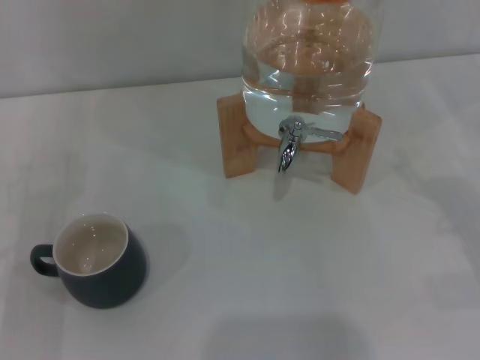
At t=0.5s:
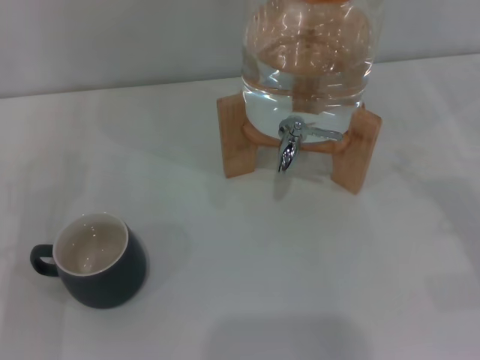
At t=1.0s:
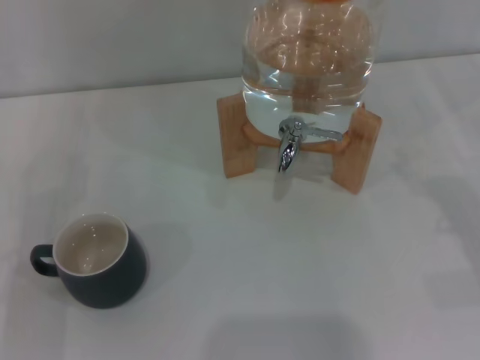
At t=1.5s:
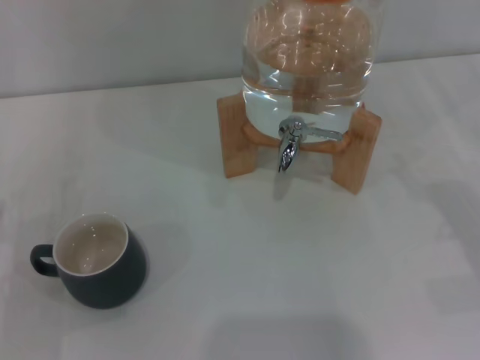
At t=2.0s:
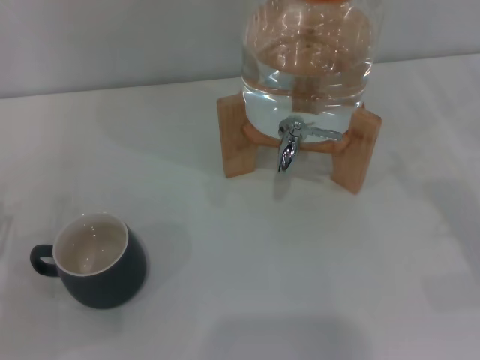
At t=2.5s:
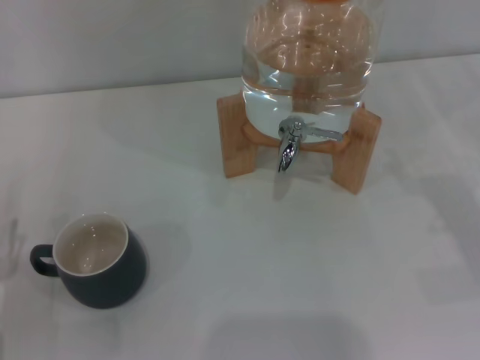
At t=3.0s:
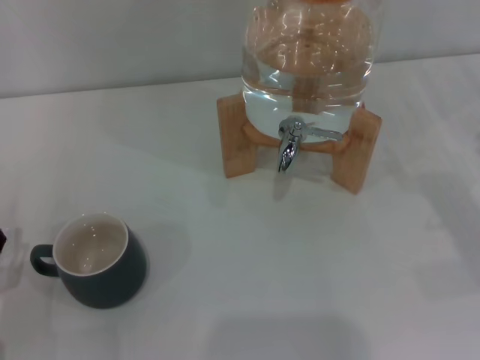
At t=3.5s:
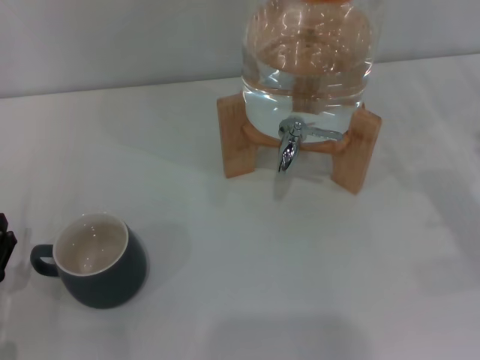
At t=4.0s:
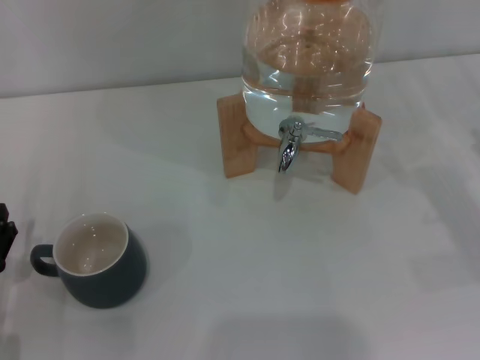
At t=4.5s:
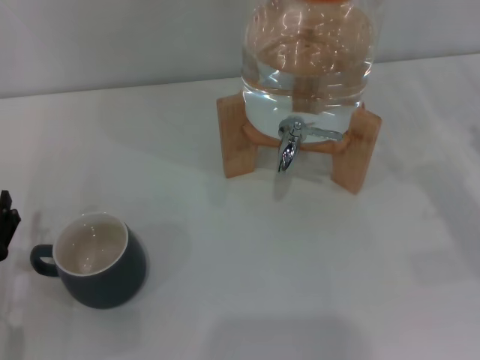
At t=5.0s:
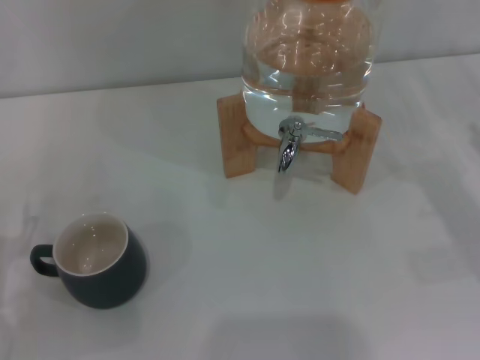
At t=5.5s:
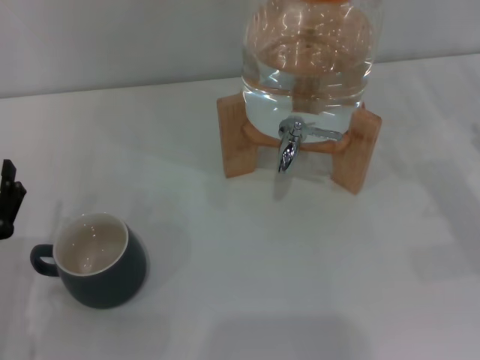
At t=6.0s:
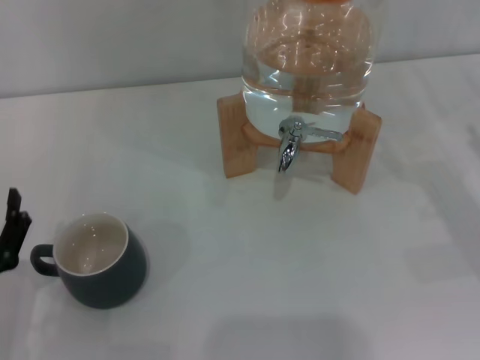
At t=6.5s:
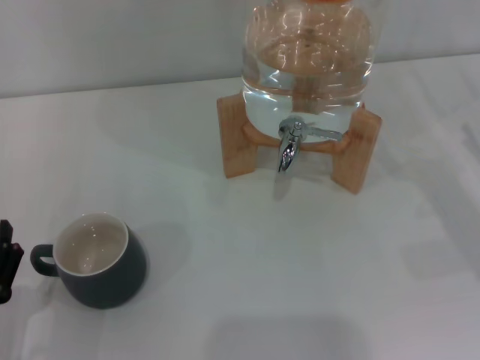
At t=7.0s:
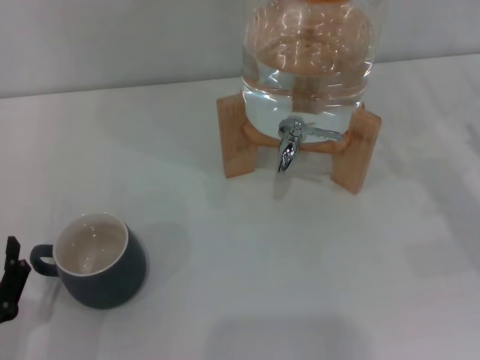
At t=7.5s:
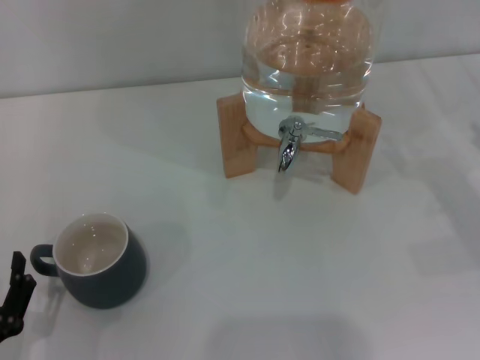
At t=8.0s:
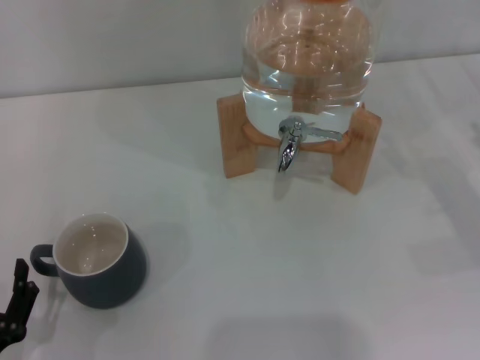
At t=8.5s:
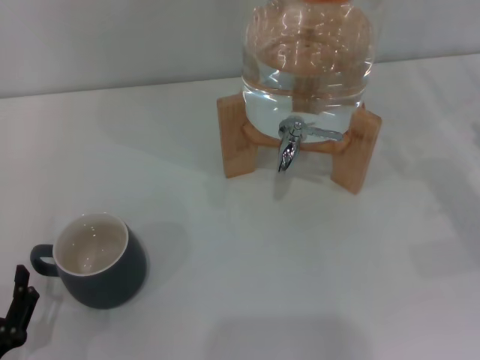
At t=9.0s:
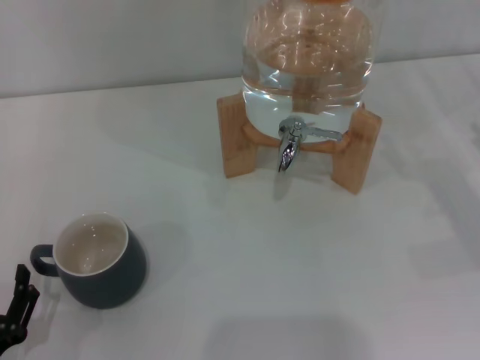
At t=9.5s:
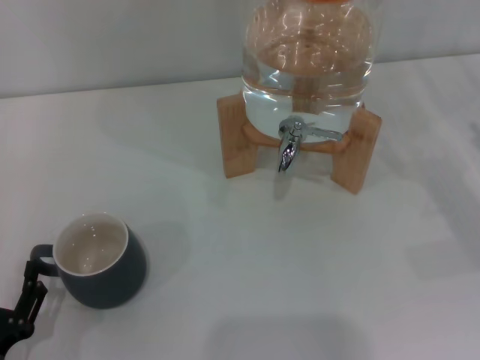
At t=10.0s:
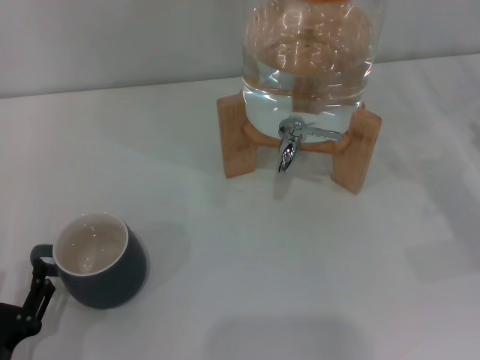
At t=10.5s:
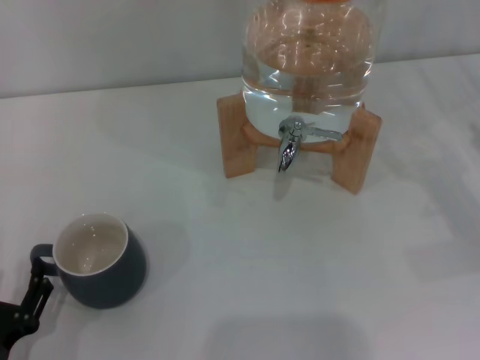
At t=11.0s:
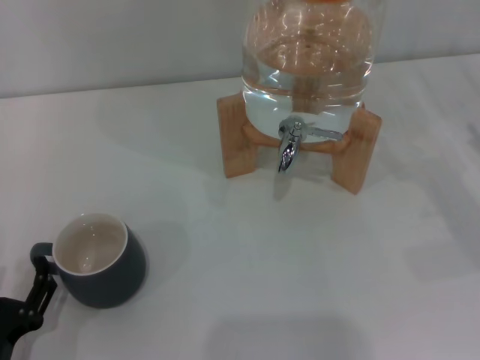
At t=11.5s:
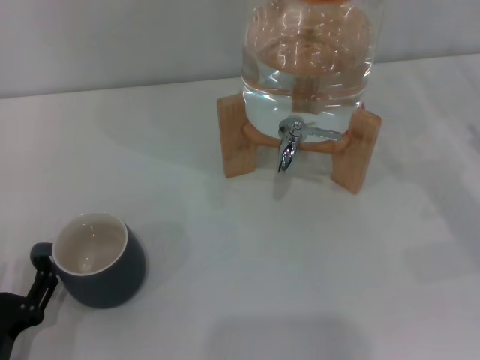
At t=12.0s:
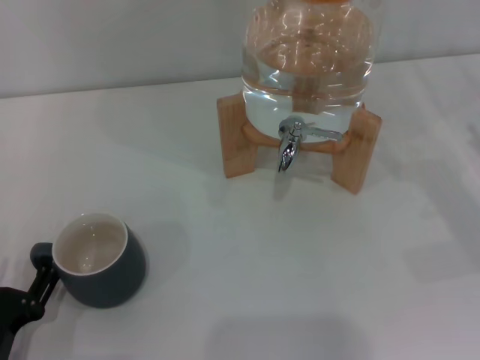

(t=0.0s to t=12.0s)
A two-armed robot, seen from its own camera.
Task of the whole recording: the left gripper pick up the black cup and place it horizontally under the faucet, the right gripper turn on the faucet to fill the cup, and then turn off the faucet.
t=4.0s - t=6.0s: The grippers make only small movements.
t=6.0s - t=8.0s: The left gripper is displaced backward by about 5 cm.
t=8.0s - t=12.0s: The grippers make only small movements.

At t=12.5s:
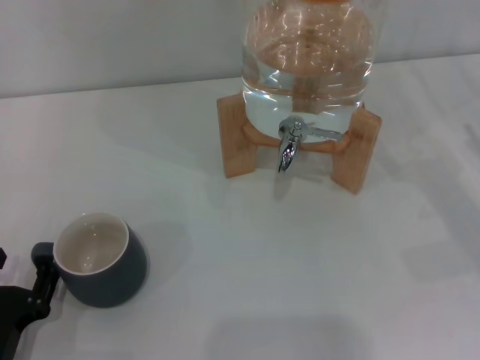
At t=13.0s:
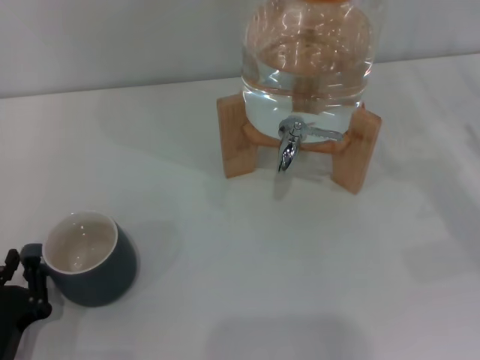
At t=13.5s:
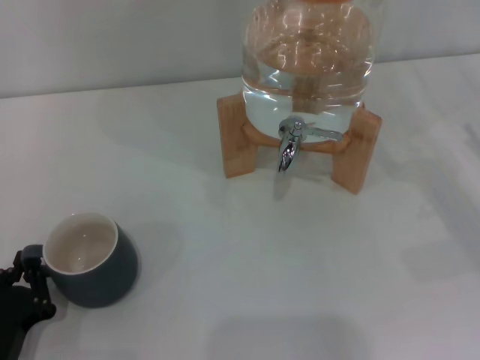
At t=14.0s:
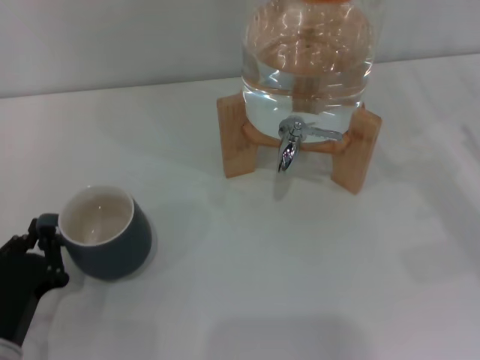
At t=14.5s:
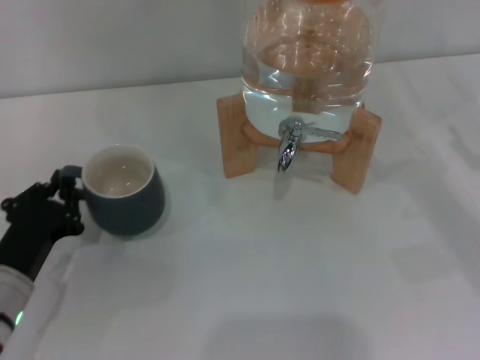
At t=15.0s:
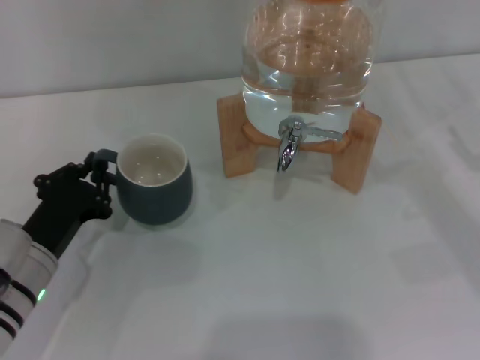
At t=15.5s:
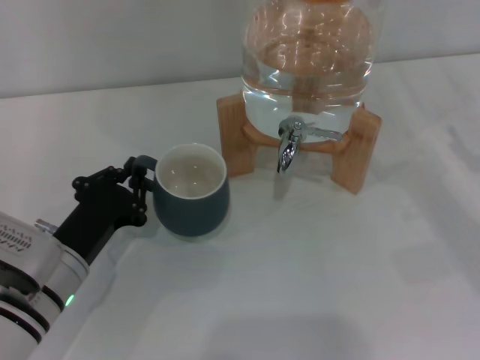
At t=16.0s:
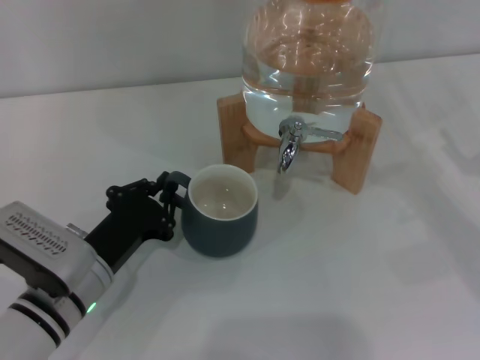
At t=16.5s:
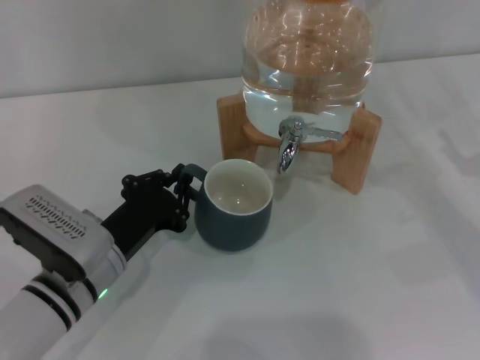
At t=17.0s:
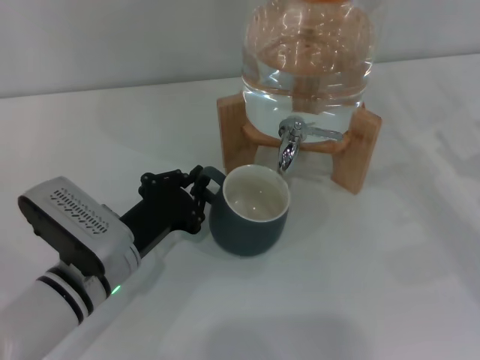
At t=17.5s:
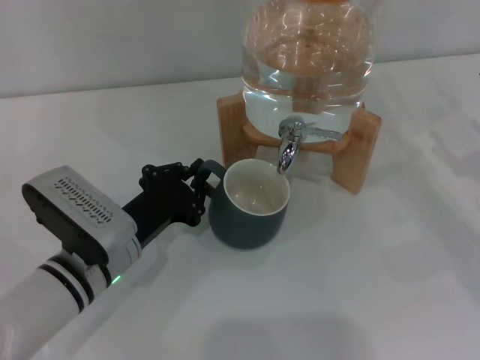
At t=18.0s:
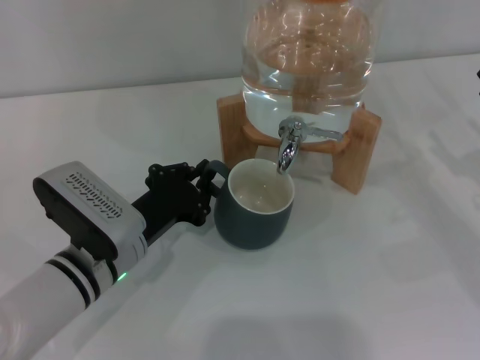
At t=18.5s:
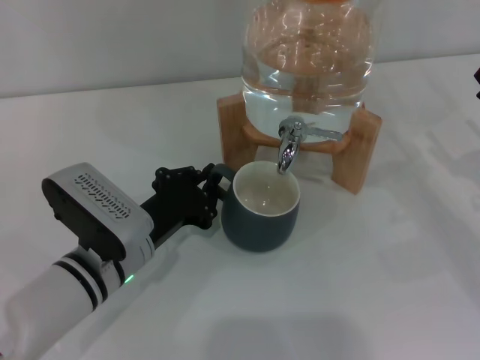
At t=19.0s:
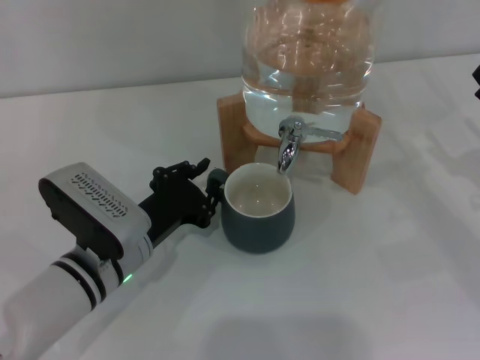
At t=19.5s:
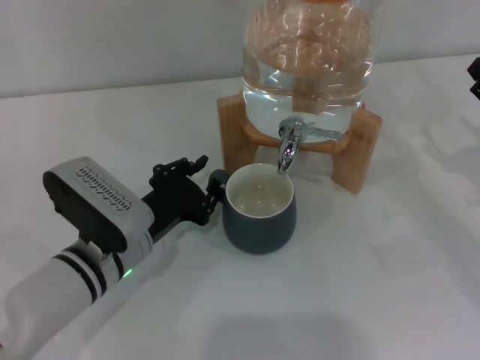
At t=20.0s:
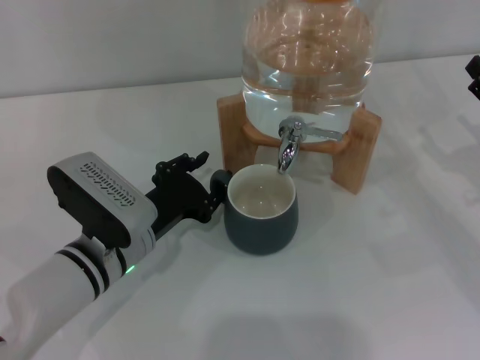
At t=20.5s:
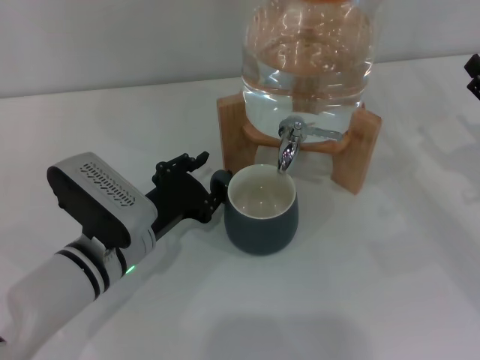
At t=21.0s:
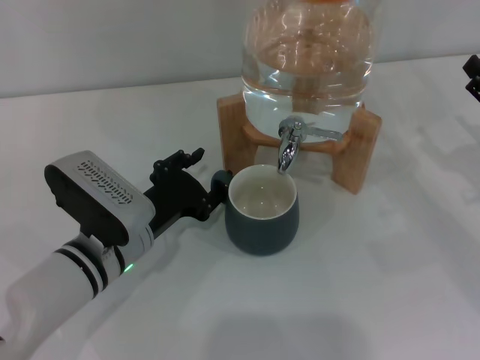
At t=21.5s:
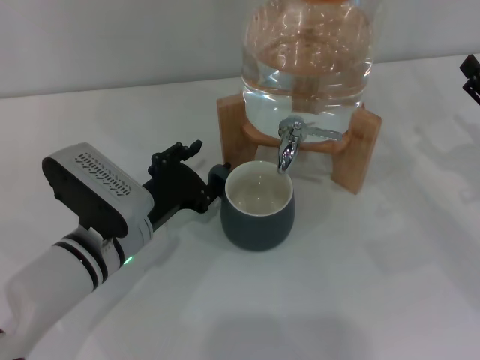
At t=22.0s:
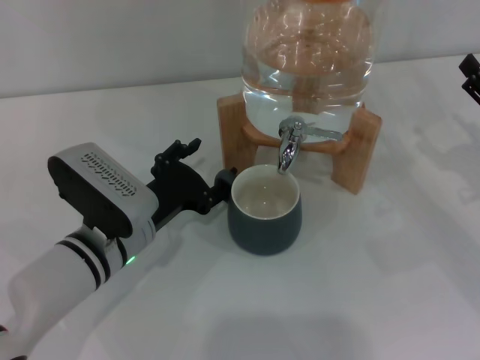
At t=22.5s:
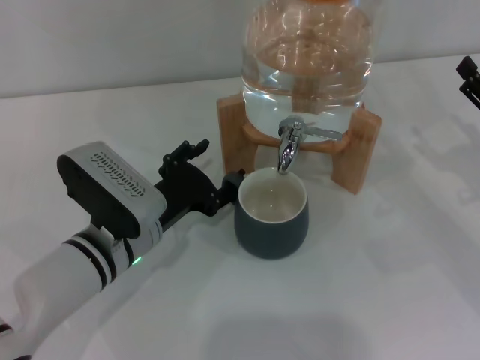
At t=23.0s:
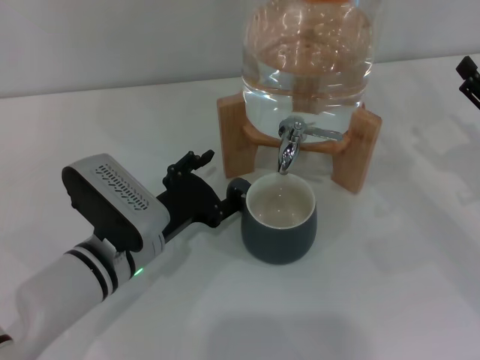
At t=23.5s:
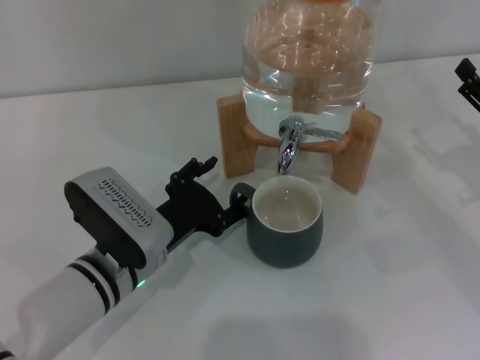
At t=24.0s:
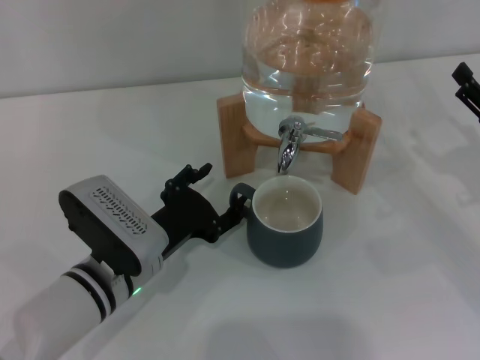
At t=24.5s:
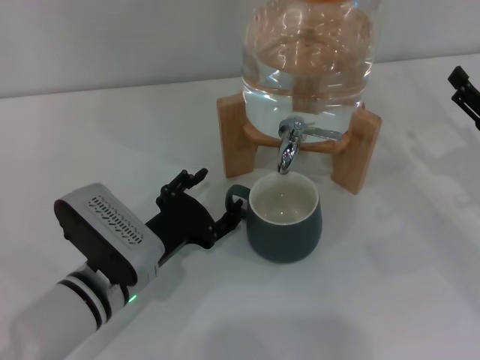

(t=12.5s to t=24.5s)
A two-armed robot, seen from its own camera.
Task of the whole recording: the left gripper pick up the black cup and place it horizontally under the faucet, the right gripper turn on the faucet to fill the cup, and then turn off the faucet.
t=12.5s - t=14.5s: The left gripper moves forward, roughly 10 cm, and closes its fingers.
t=14.5s - t=16.5s: The left gripper heads to the right, covering roughly 10 cm.
t=16.5s - t=18.5s: The grippers move only a little.
t=18.5s - t=20.5s: Both grippers stay about where they are.
t=20.5s - t=22.5s: The left gripper opens up.
t=22.5s - t=24.5s: The grippers make only small movements.

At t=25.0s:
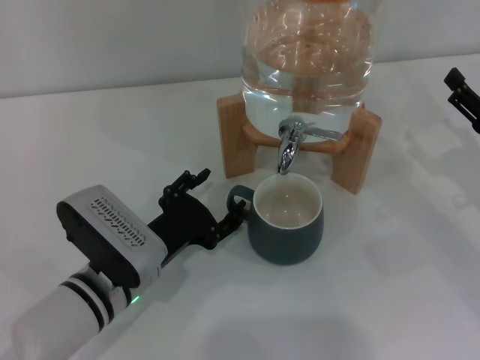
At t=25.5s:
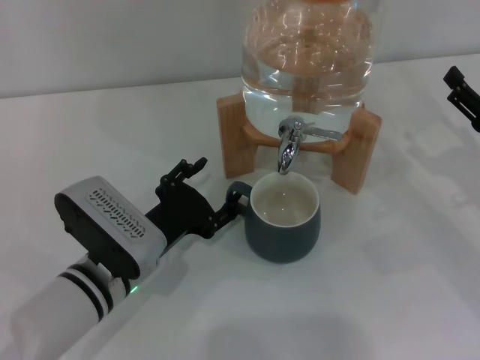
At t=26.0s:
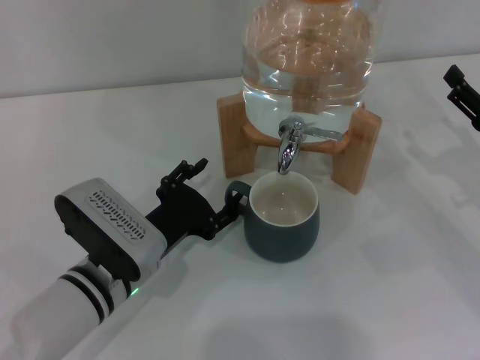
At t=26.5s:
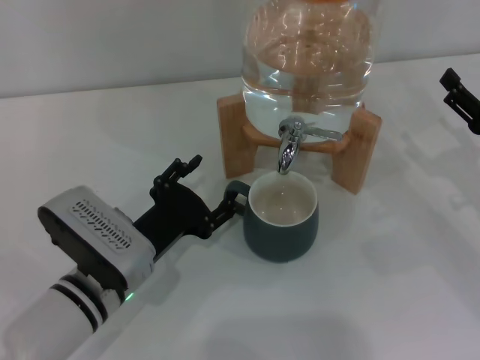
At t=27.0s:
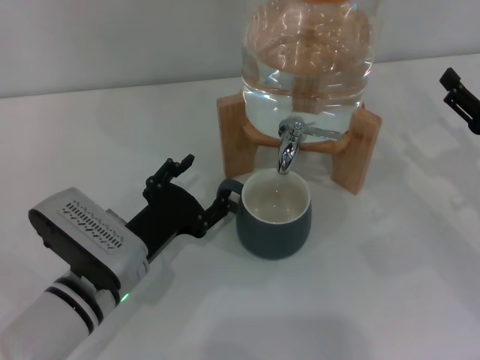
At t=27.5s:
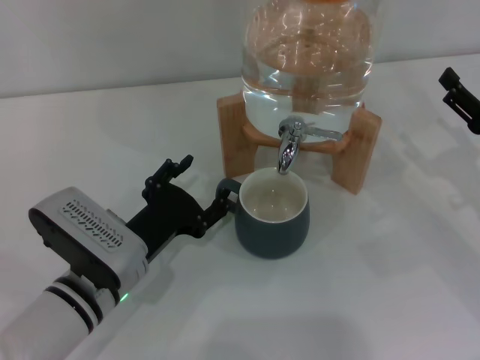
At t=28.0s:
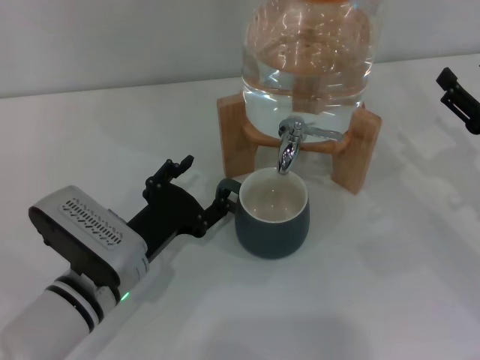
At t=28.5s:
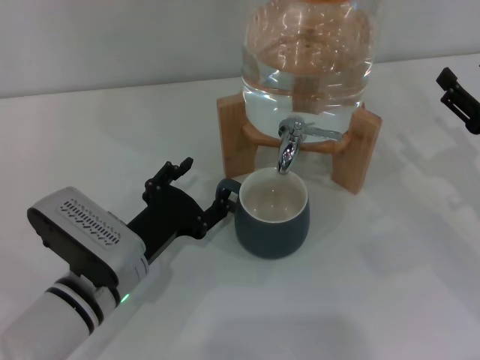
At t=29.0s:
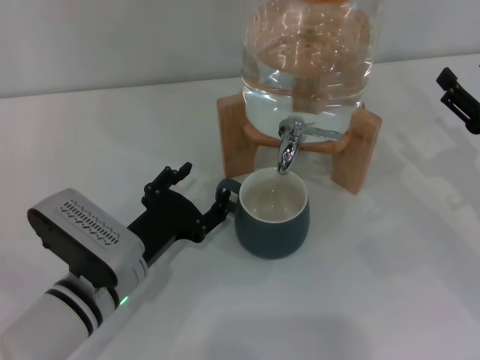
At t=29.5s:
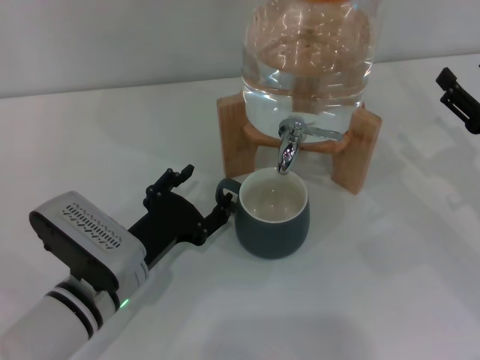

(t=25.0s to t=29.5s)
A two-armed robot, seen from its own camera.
Task of the whole recording: the left gripper pick up the black cup and place it horizontally under the faucet, the right gripper turn on the faucet to fill the cup, and then turn off the faucet.
t=25.0s - t=27.0s: The grippers move only a little.
t=27.0s - t=29.5s: Neither gripper changes place.
